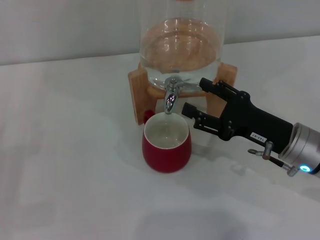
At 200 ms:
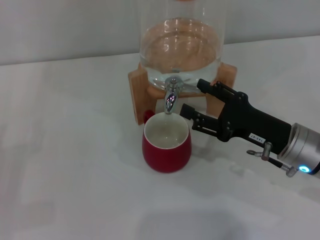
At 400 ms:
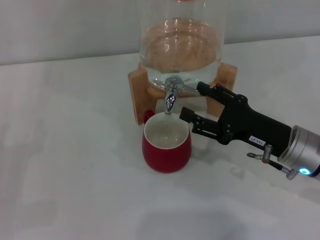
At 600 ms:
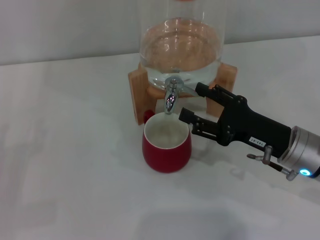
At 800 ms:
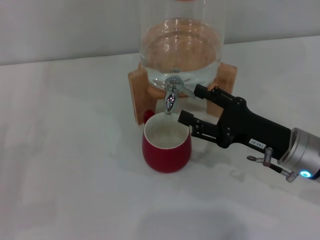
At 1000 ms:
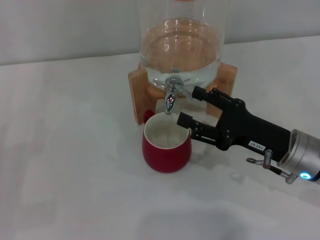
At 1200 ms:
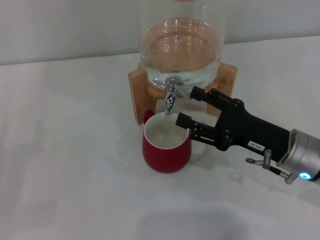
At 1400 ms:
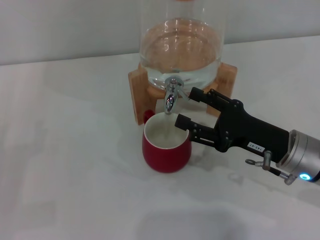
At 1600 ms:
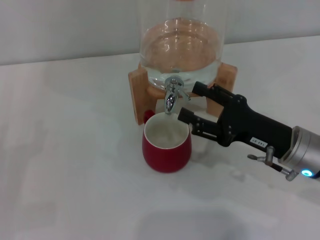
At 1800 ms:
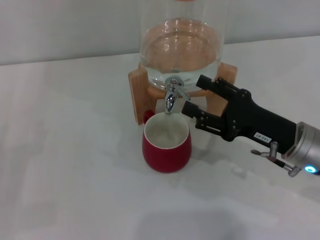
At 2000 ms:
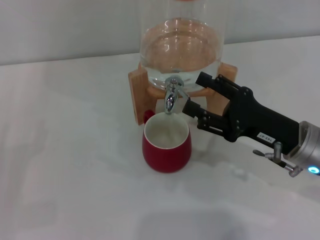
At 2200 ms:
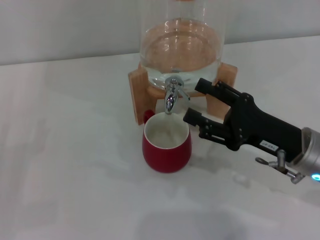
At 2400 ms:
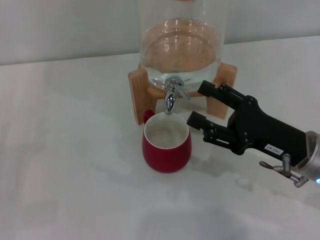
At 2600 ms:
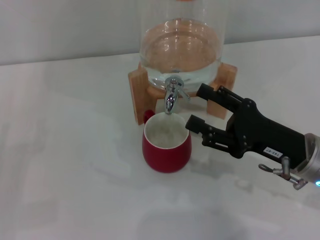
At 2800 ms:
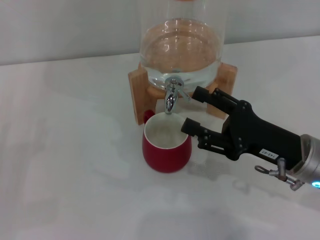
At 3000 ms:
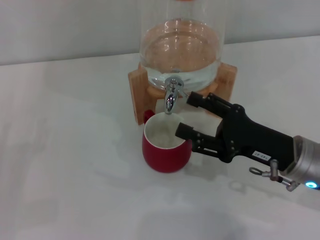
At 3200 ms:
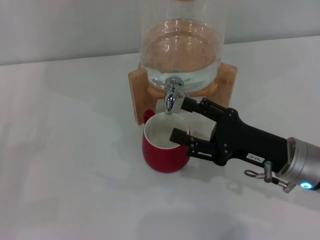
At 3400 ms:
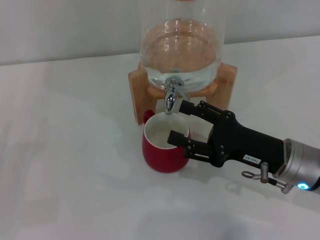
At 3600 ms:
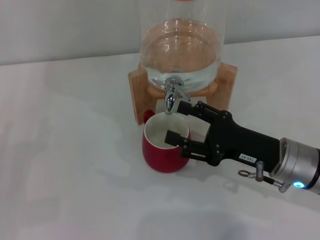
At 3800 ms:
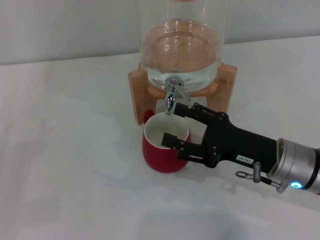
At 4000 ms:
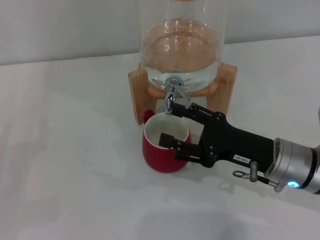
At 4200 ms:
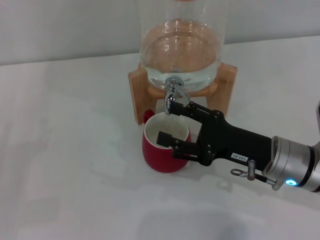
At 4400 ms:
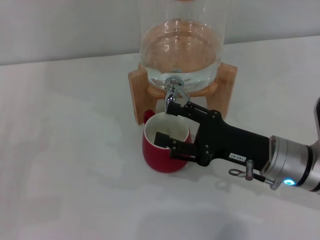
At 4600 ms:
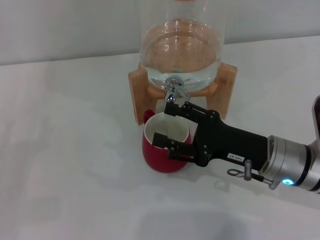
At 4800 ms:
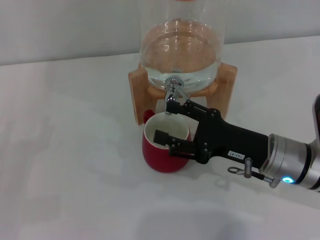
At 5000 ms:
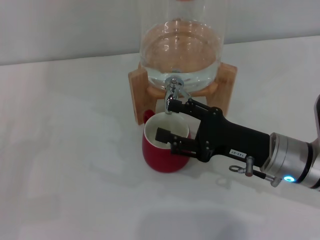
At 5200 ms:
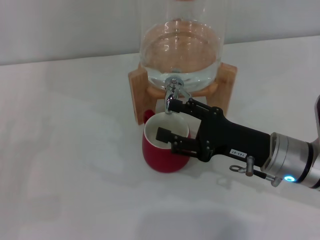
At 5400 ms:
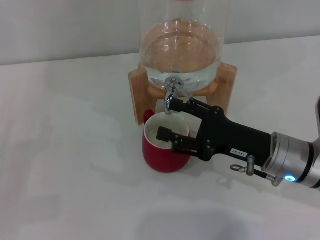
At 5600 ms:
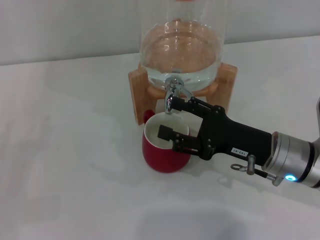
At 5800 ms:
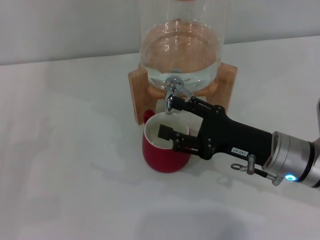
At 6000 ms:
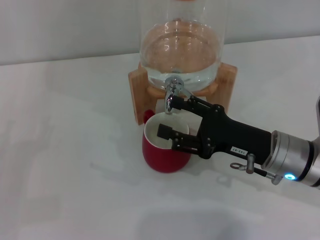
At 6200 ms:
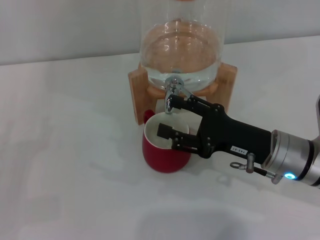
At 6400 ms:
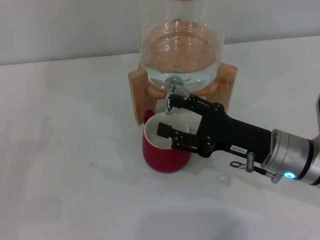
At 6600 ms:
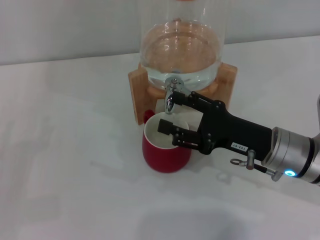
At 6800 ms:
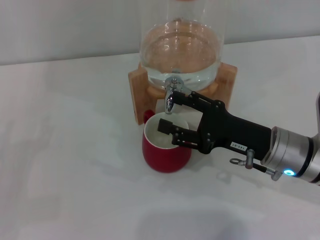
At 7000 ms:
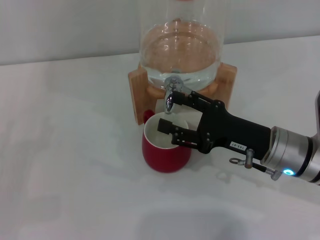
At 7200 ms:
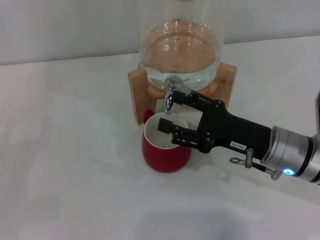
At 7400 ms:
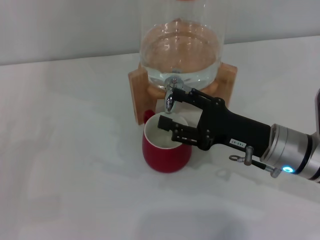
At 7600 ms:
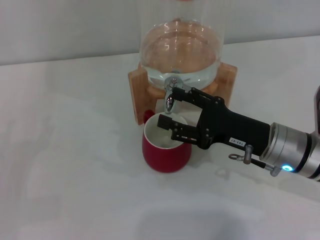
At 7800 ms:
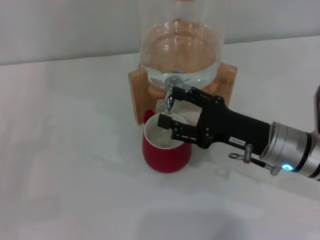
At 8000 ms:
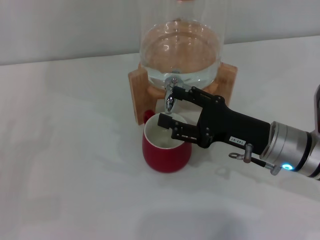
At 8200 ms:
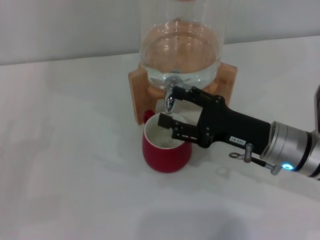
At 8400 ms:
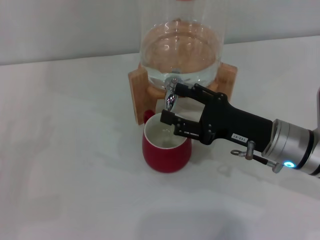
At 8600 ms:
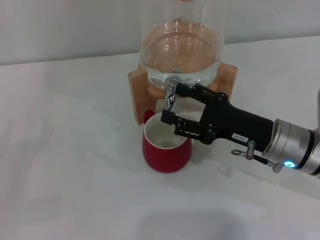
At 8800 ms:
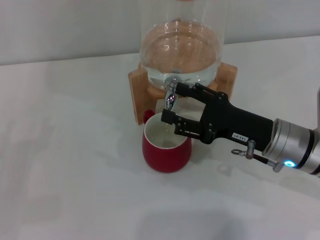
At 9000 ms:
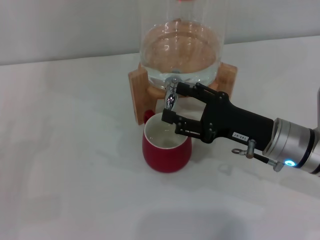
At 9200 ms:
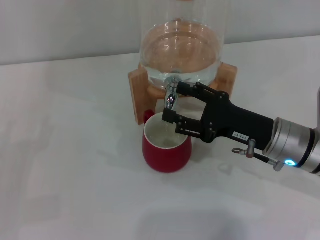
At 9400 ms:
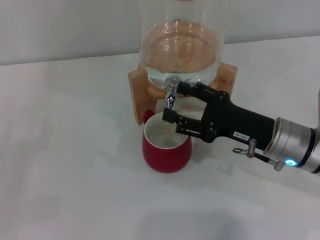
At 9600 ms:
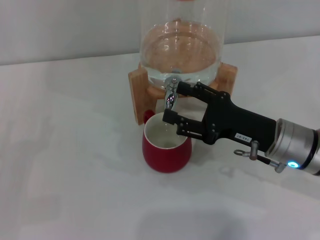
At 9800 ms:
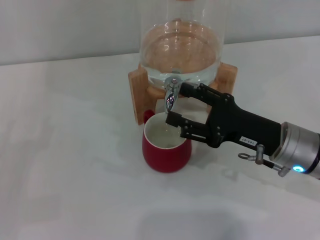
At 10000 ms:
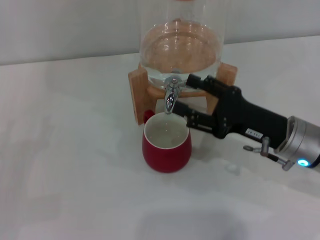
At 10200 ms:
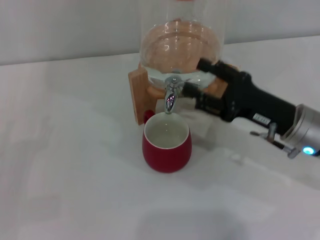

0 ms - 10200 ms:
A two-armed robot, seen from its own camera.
Task of the whole recording: the left gripper pick up the red cup and place it horizontally under the faucet, the right gripper turn on the faucet to fill the cup, and then turn off the faucet.
Step, 0 ms - 2400 ms: Open the dispenser valve and fill the cup with water with the right gripper.
Step, 2600 ms - 9800 ms: Close the dispenser valve with the right gripper.
0 ms - 4400 ms: There are only small adjustments of the grippers.
4400 ms - 7200 ms: Neither gripper changes place.
7200 ms - 8800 ms: The two grippers keep their place.
8800 ms - 10200 ms: The grippers stay close to where they were, moving slightly.

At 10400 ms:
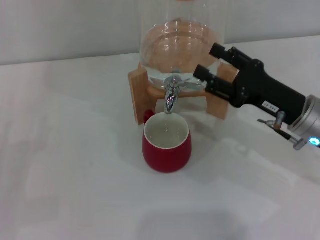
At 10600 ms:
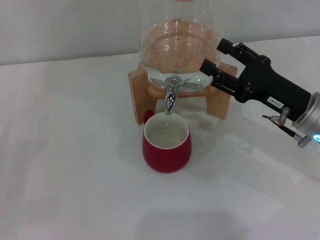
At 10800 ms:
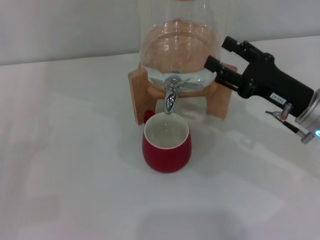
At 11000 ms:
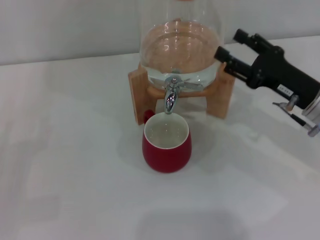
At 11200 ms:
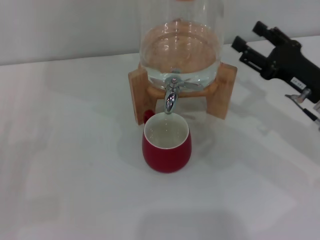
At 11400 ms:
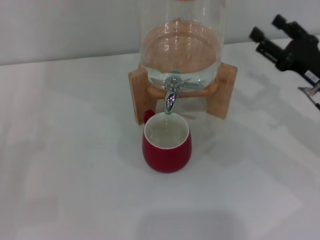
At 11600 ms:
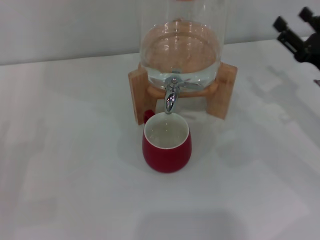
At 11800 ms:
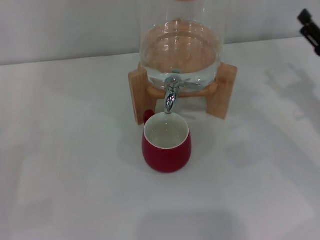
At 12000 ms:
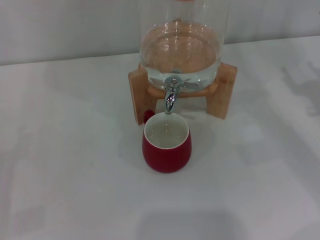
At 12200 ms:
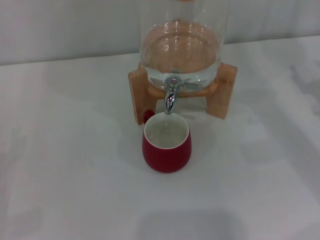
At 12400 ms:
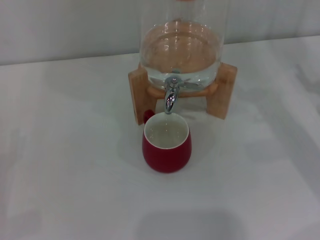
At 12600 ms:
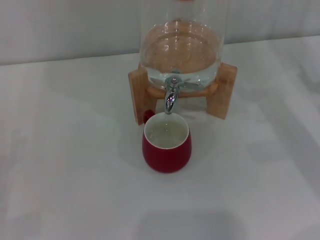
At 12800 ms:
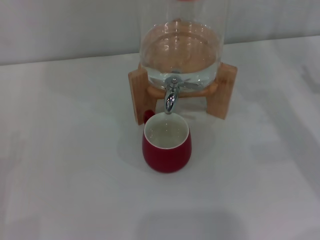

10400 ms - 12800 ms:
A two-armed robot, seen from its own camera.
Task of the whole recording: the left gripper pick up the red cup and place it horizontally under the faucet, the right gripper turn on the faucet to fill the cup, and then turn off the faucet.
10400 ms - 11600 ms: The right gripper goes approximately 10 cm to the right.
11600 ms - 12800 ms: The right gripper heads to the right, covering some 5 cm.

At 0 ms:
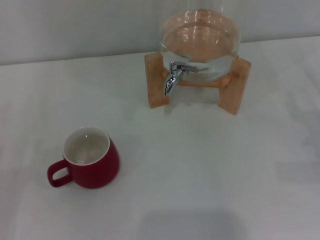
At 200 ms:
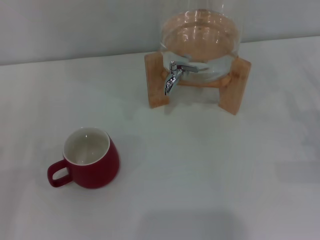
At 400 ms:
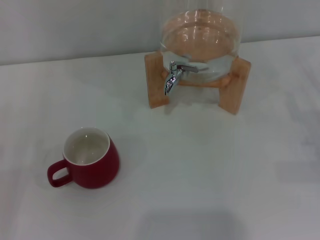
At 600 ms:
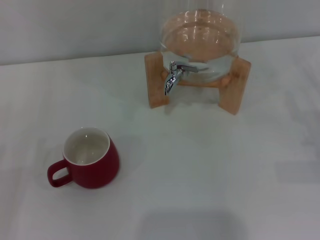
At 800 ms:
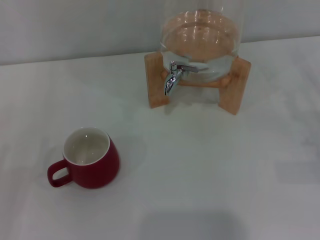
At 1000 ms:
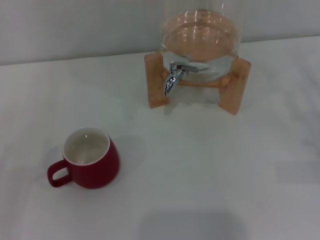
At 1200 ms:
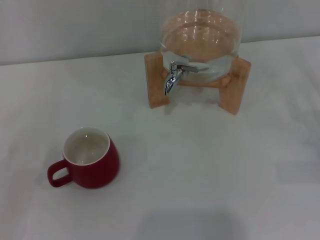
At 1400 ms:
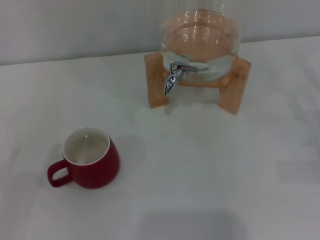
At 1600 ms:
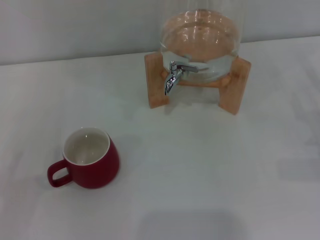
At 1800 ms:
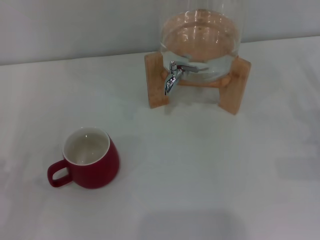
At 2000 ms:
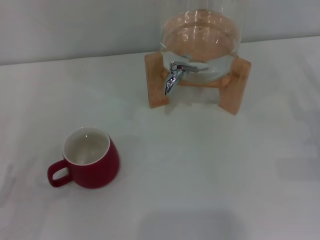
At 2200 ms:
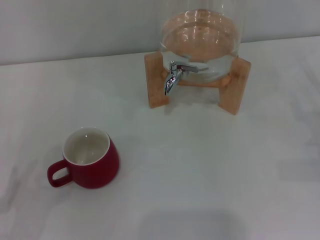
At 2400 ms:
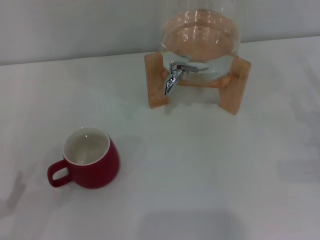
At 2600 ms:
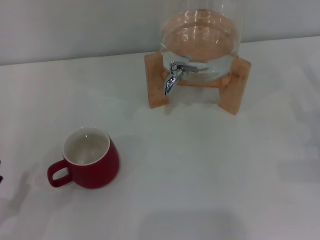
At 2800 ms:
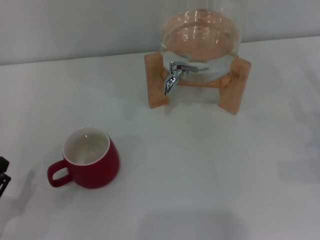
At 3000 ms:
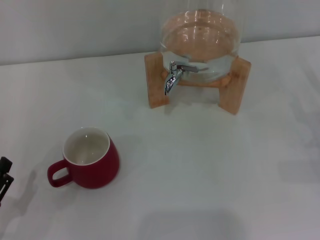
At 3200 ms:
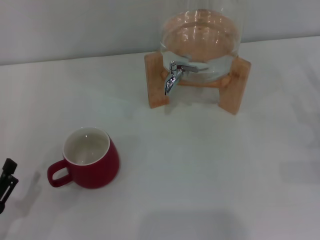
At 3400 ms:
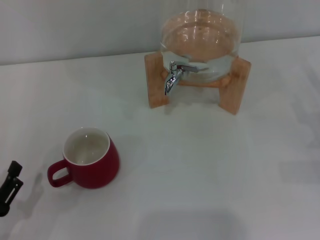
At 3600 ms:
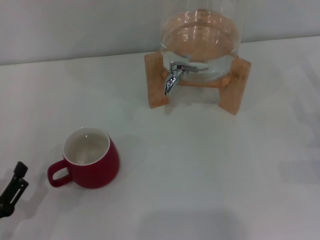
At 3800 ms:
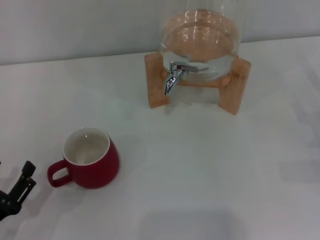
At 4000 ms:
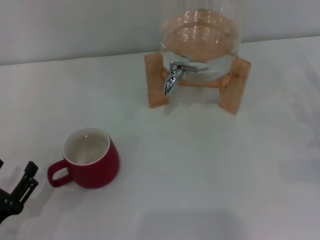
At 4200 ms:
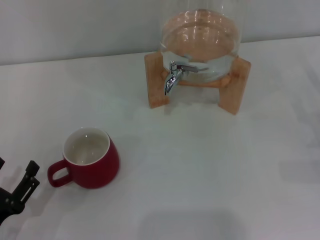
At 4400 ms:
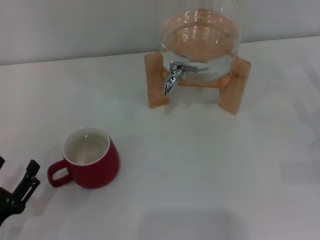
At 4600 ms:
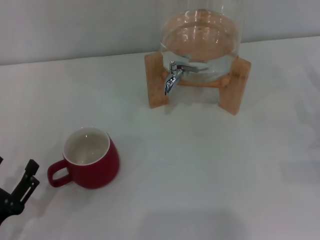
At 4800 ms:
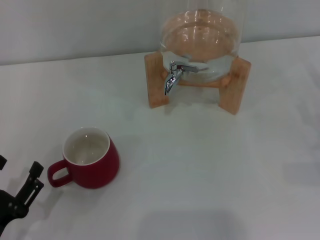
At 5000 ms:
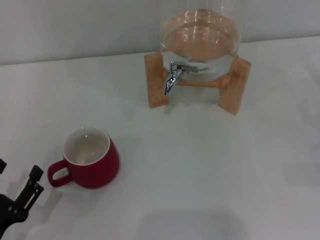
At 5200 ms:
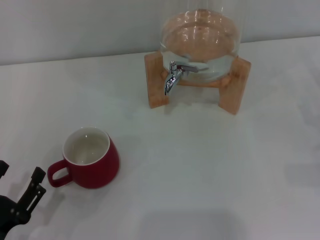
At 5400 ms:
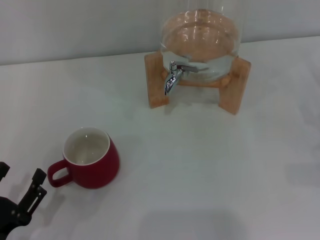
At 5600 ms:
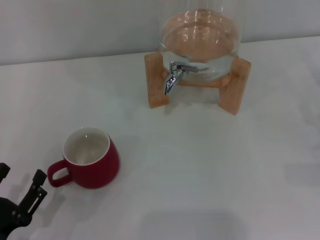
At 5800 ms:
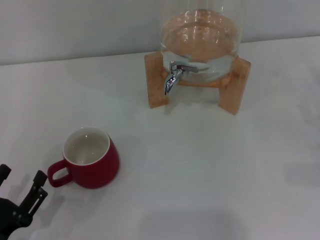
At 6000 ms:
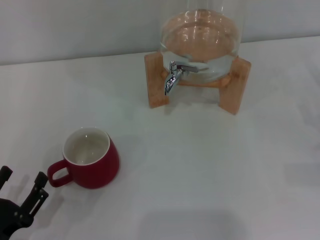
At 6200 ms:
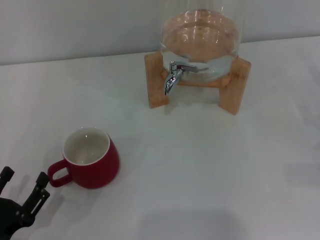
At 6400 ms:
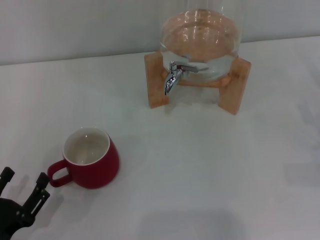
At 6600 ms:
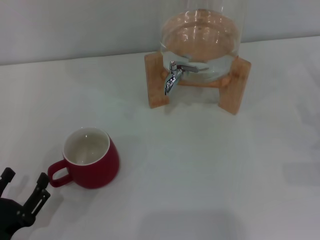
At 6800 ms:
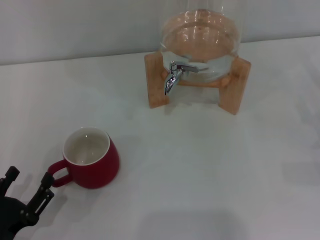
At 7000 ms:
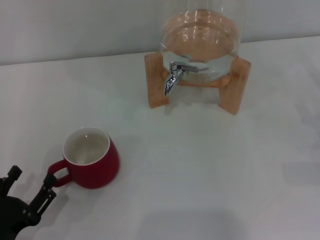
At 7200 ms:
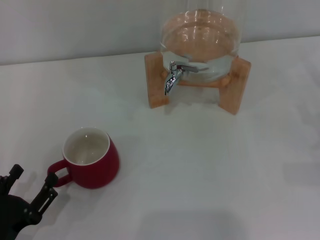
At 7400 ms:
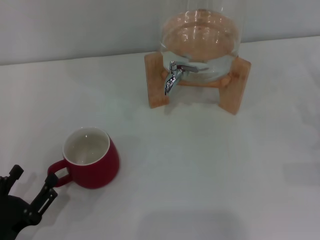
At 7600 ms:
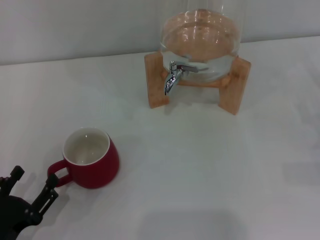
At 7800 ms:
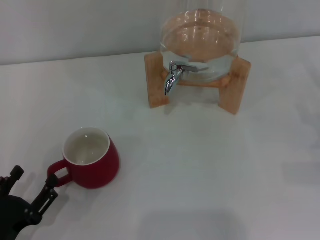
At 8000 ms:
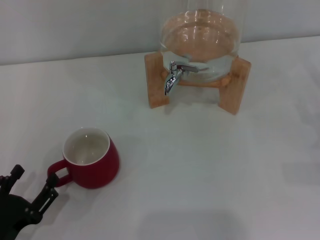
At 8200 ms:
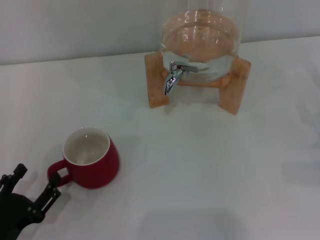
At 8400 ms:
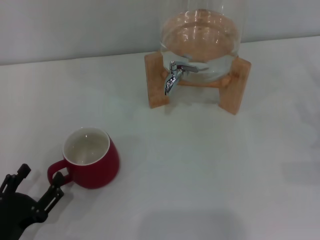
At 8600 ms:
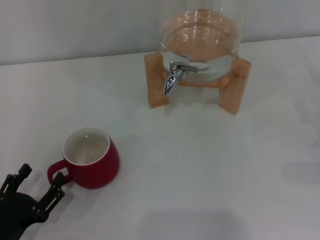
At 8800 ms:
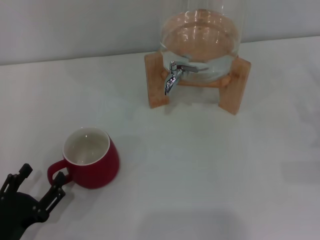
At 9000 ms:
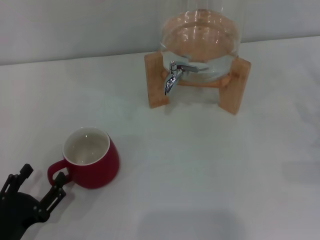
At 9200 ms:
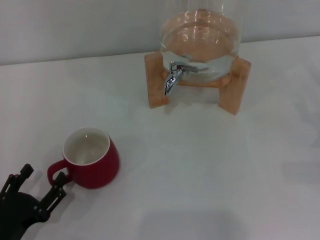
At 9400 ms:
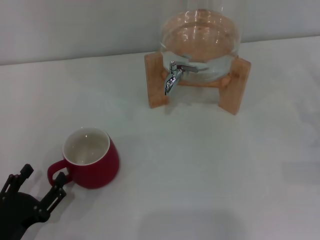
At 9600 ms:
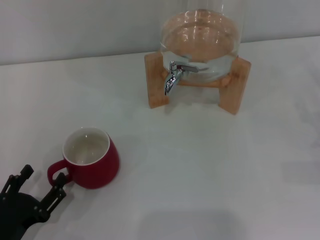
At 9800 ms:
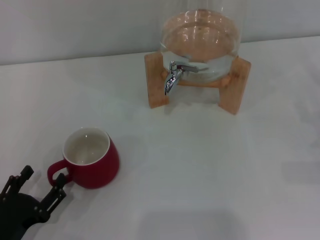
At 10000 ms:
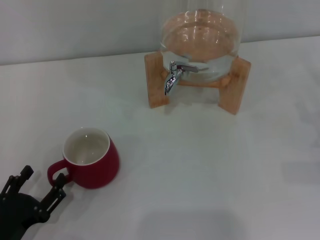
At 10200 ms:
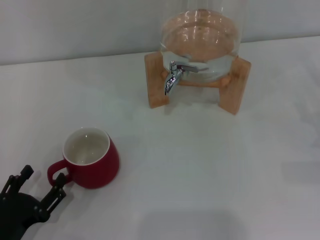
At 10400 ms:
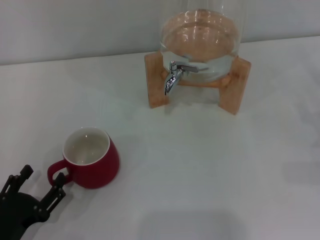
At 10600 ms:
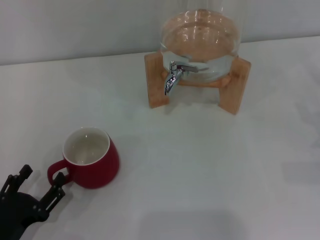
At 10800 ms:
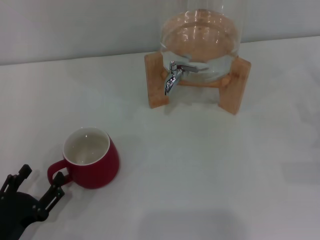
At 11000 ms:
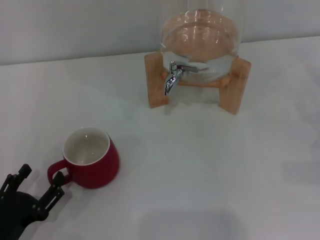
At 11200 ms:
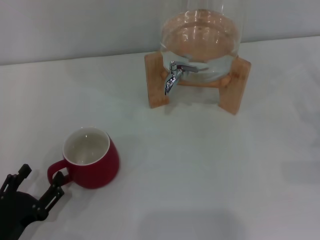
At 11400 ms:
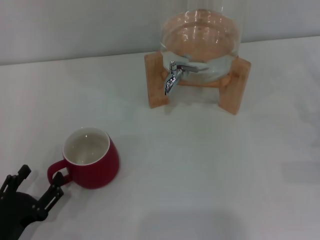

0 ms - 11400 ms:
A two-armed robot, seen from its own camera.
Task of the whole recording: the left gripper pick up the red cup and place it horizontally under the faucet, the right gripper turn on the faucet to fill the cup, and then turn off the faucet.
2800 ms - 7200 ms: The grippers stay close to where they were, moving slightly.
7200 ms - 8600 ms: The two grippers keep their place.
8600 ms - 11400 ms: Both grippers stay put.
